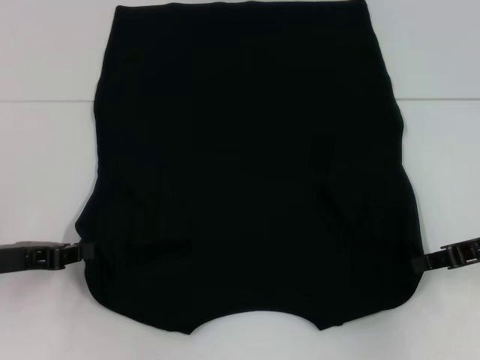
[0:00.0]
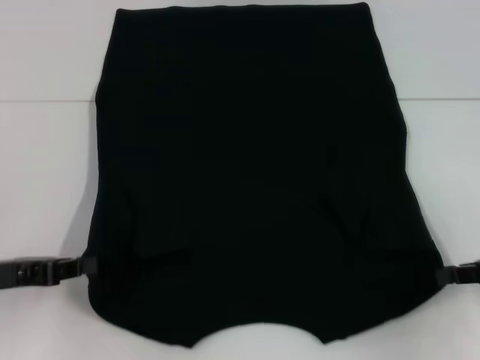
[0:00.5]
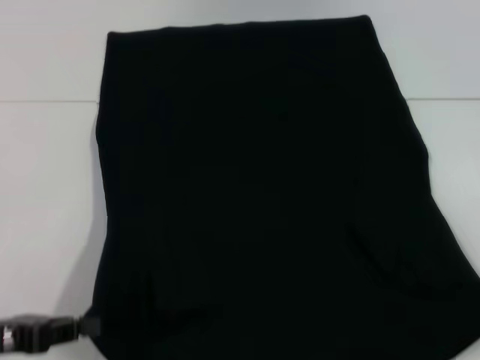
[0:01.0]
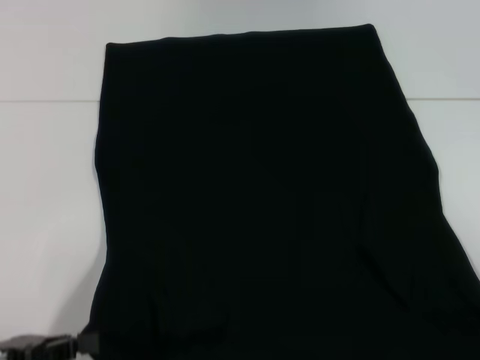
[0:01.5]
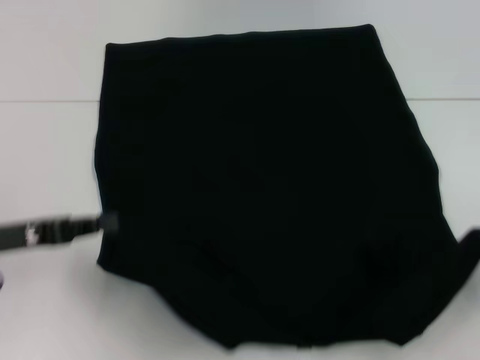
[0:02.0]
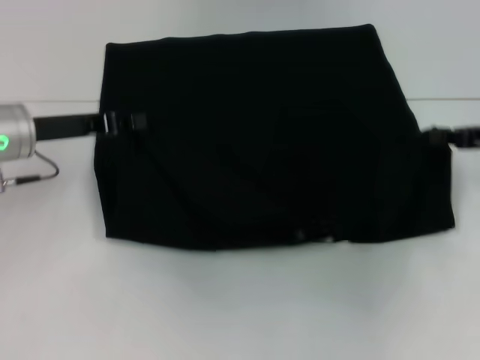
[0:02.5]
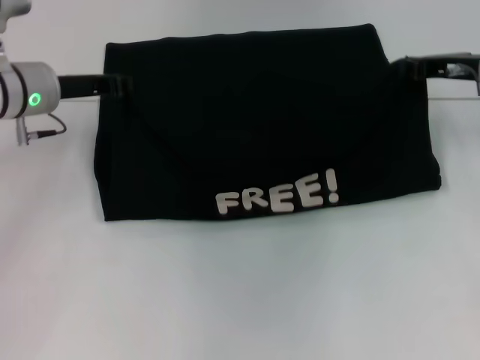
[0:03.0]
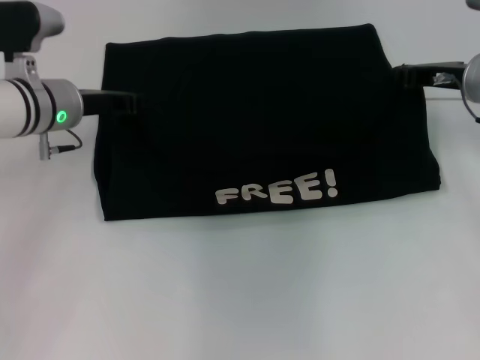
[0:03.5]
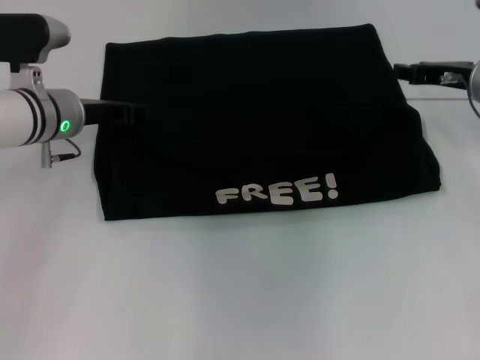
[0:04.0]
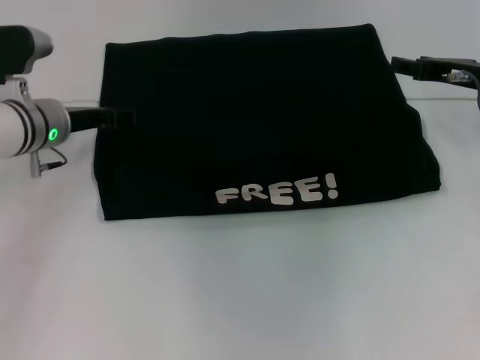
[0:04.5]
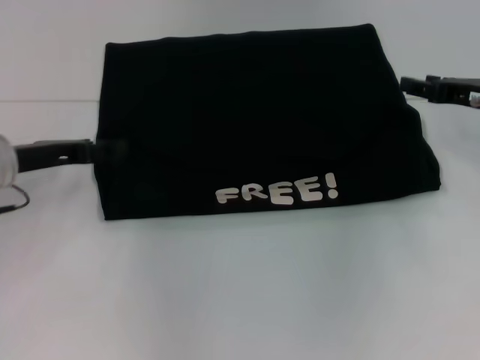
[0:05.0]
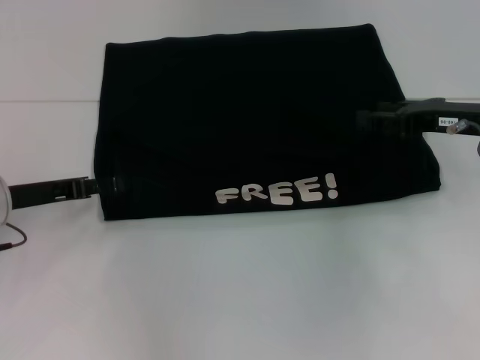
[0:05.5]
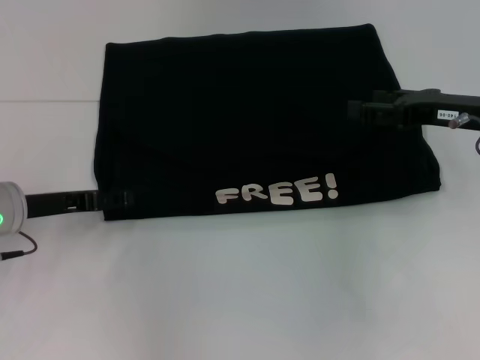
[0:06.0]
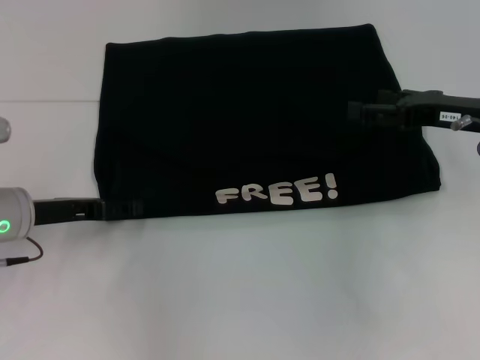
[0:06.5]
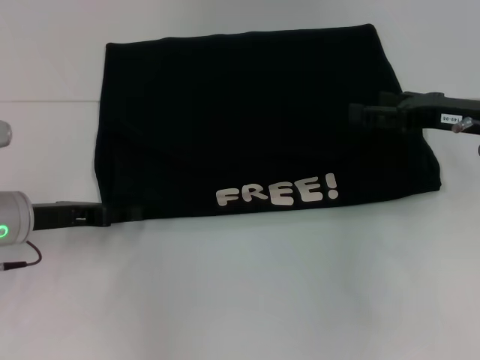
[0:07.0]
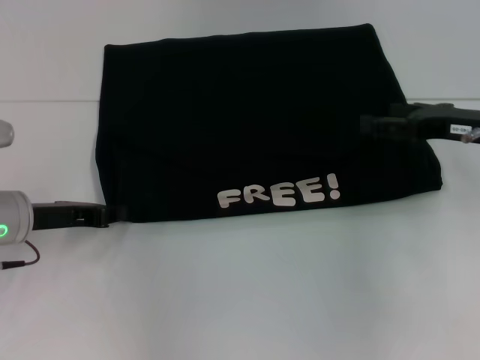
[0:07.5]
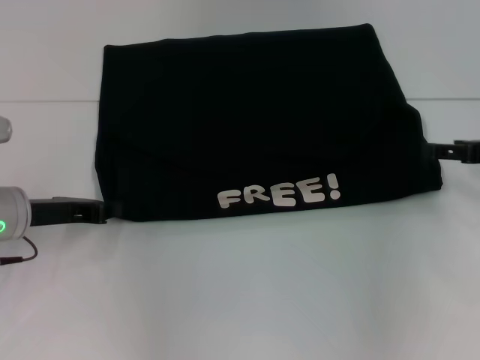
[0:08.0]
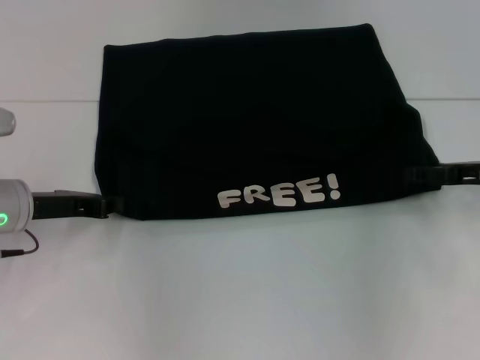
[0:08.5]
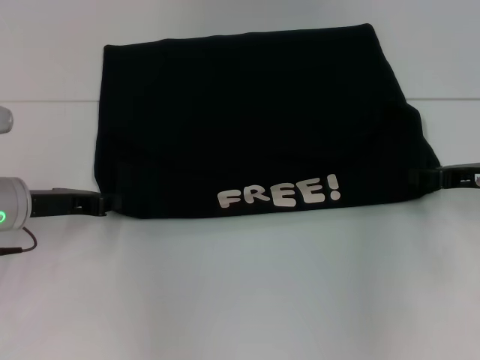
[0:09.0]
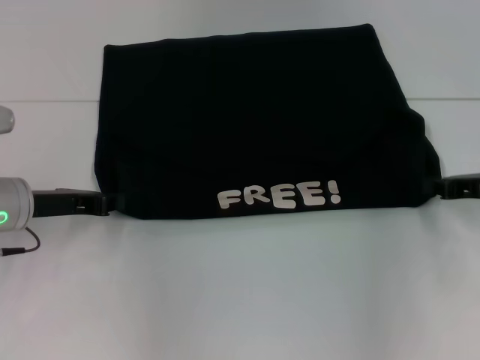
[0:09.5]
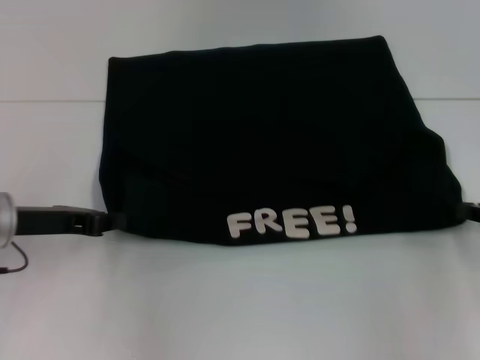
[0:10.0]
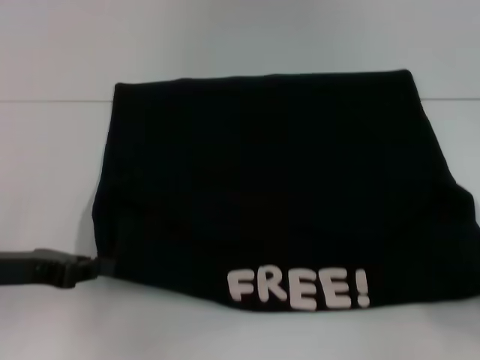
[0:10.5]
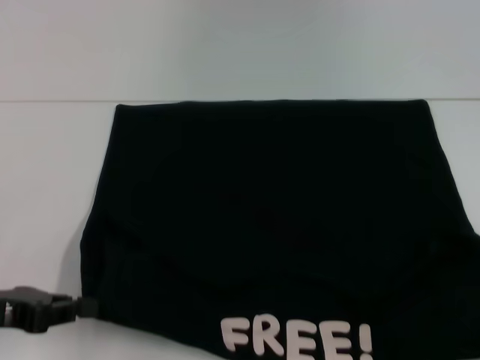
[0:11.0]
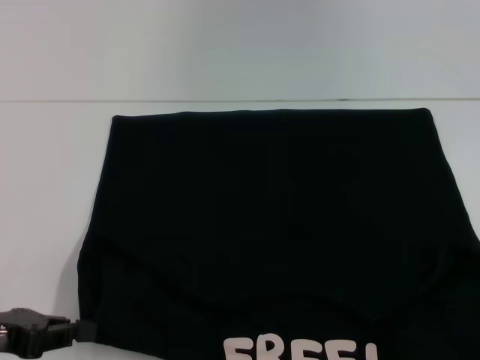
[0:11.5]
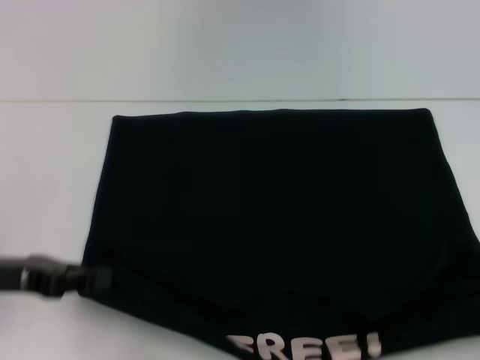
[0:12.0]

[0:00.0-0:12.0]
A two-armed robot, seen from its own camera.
Step, 0:00.0 to 0:04.5: Fold the clothes with your left hand.
Step, 0:00.0 to 0:04.5: Fold the clothes with your right hand.
Step, 0:05.0 to 0:10.5: Pull the clothes with your left hand.
Step, 0:05.0 to 0:10.5: Pull the clothes with your right hand.
0:00.0 to 0:02.0: The right gripper shifts some 10 cm to the right and backward, while the left gripper travels backward and back again, some 10 cm each way.
0:02.0 to 0:04.0: The left gripper is displaced forward and to the right by roughly 20 cm, and opens, while the right gripper moves forward and to the left, about 25 cm.
0:04.0 to 0:06.0: The right gripper heads backward, covering roughly 5 cm. Meanwhile the left gripper moves backward and to the left, some 10 cm, and opens up.
0:06.0 to 0:08.0: The right gripper heads to the right, covering approximately 5 cm; the left gripper closes.
0:08.0 to 0:10.0: The right gripper moves backward, approximately 5 cm, and closes.
0:10.0 to 0:12.0: The left gripper travels backward by approximately 5 cm. The right gripper travels backward by about 15 cm.

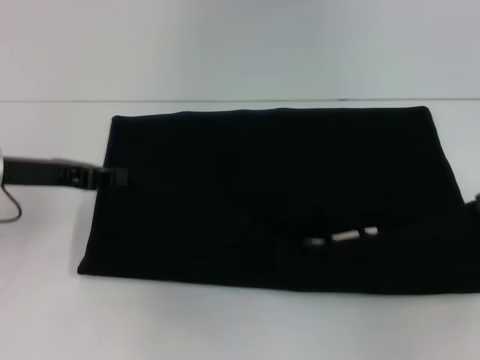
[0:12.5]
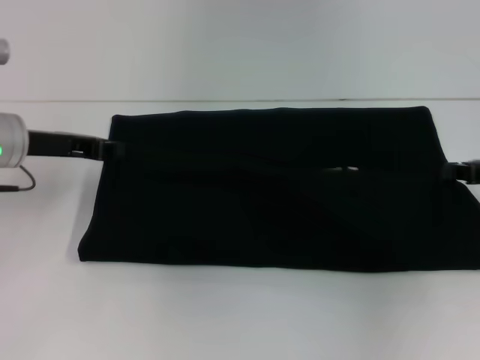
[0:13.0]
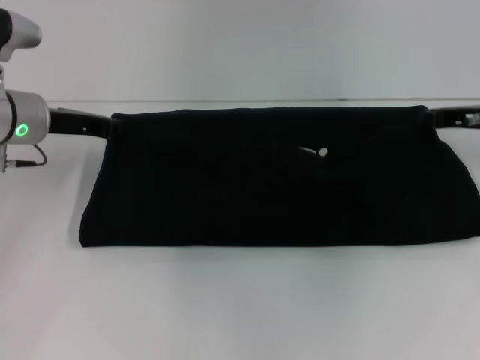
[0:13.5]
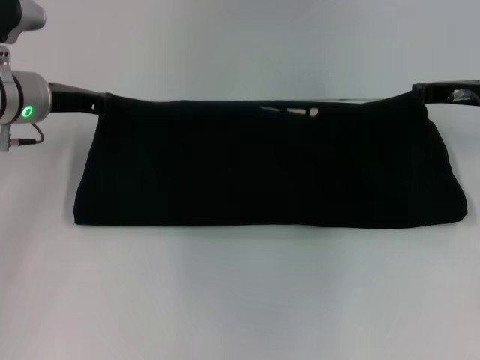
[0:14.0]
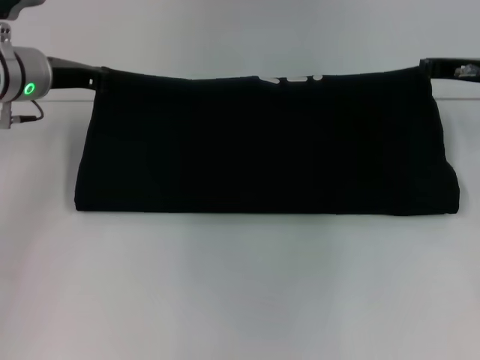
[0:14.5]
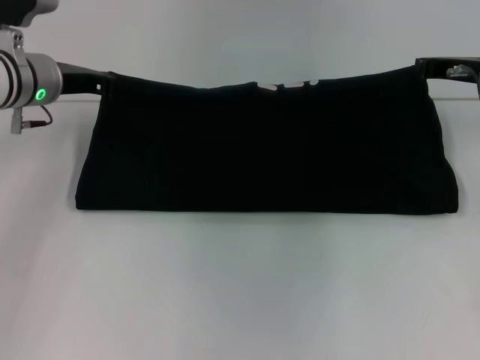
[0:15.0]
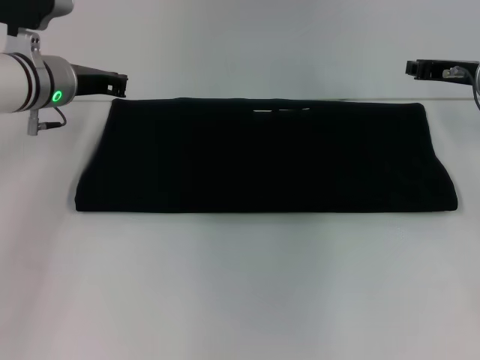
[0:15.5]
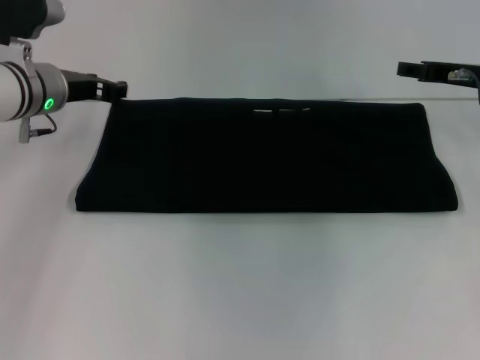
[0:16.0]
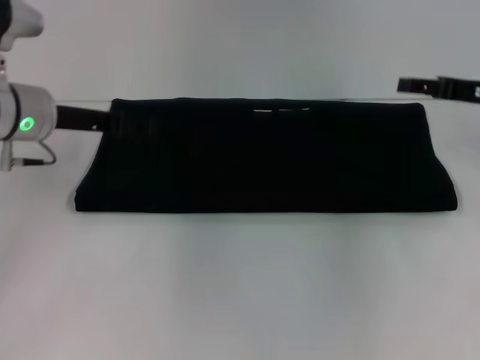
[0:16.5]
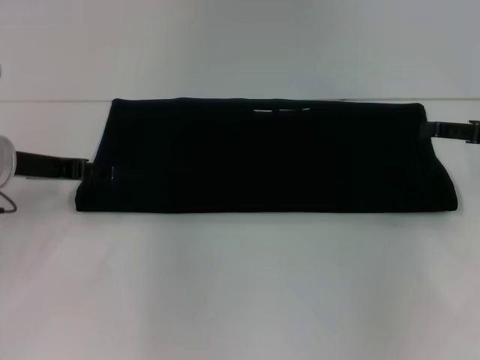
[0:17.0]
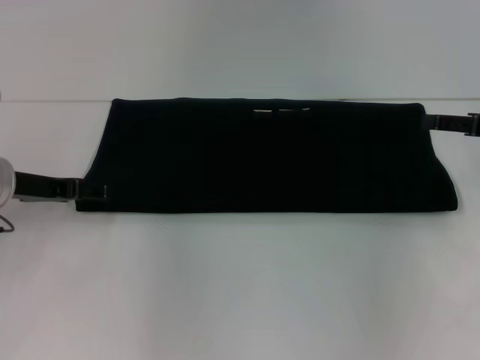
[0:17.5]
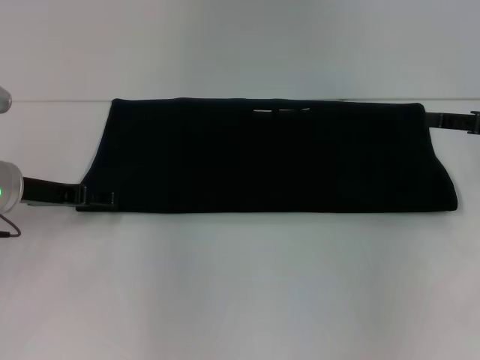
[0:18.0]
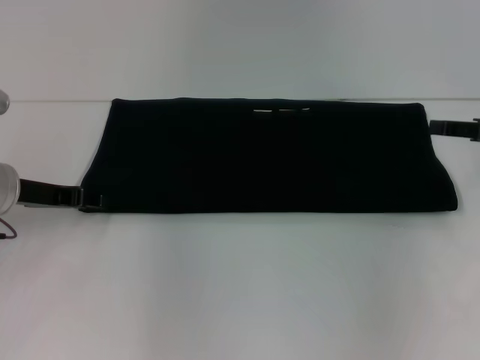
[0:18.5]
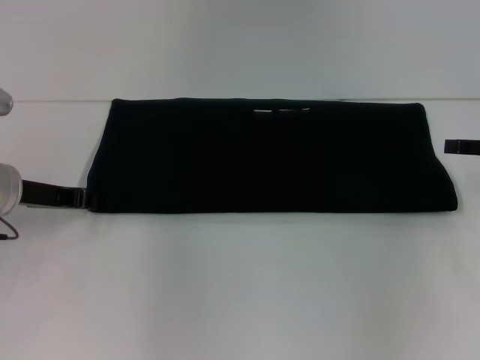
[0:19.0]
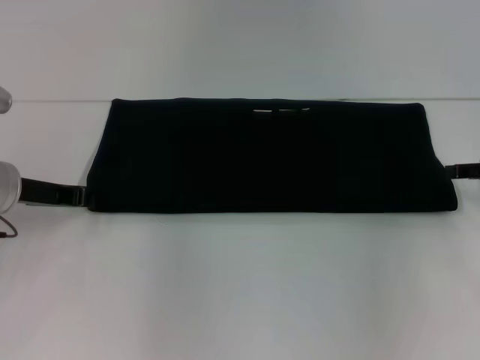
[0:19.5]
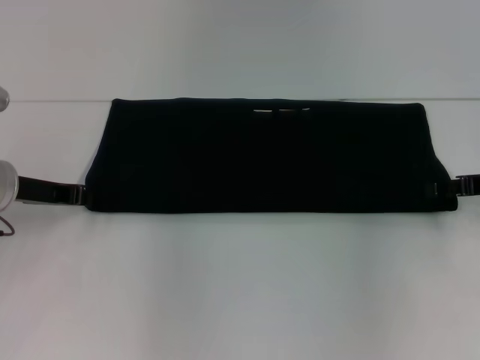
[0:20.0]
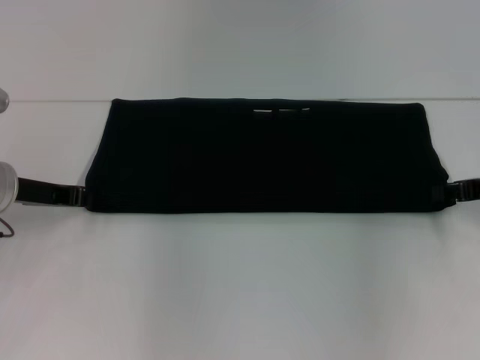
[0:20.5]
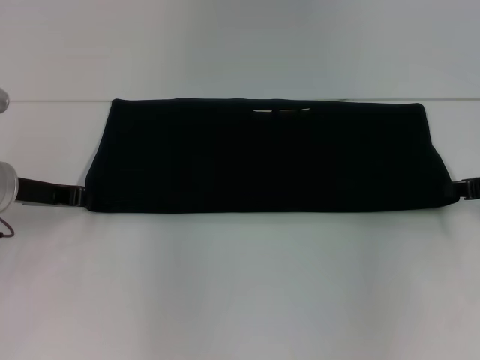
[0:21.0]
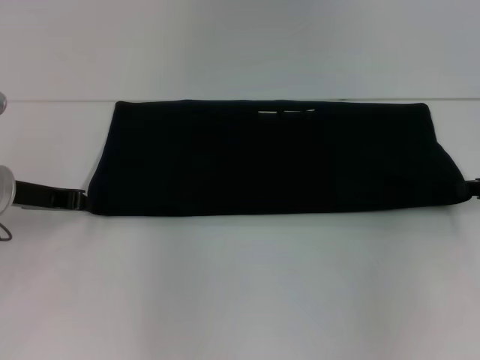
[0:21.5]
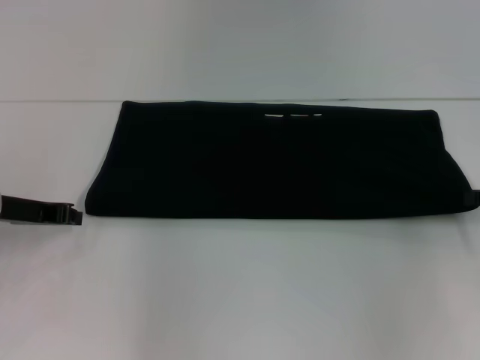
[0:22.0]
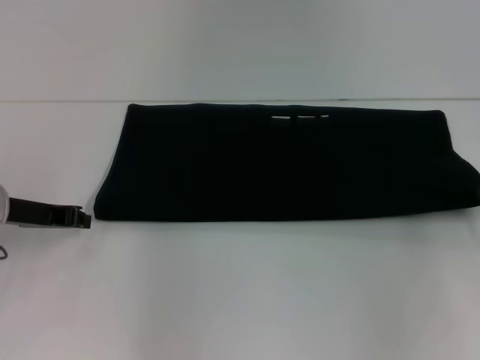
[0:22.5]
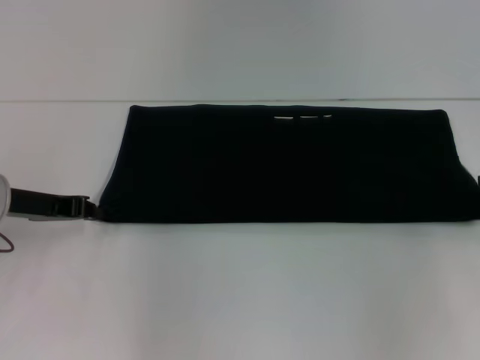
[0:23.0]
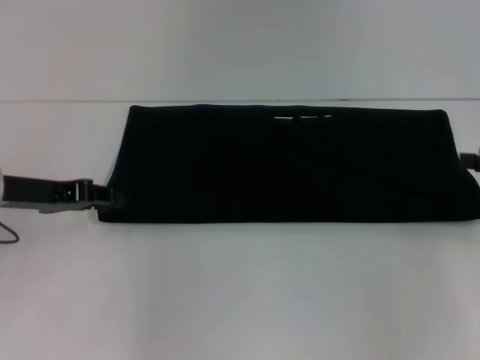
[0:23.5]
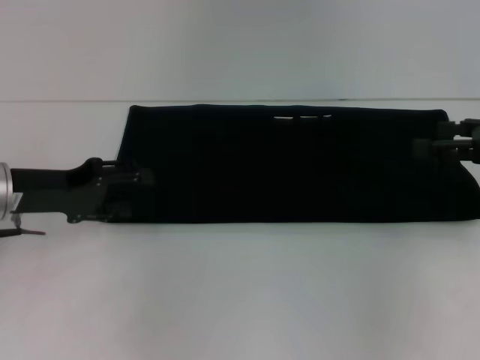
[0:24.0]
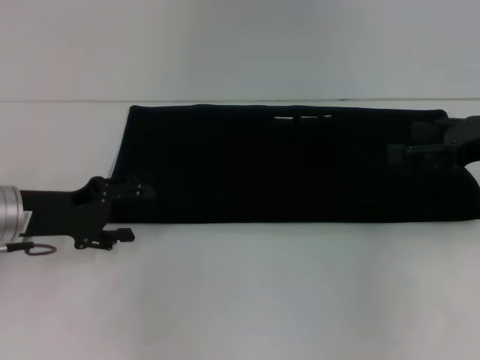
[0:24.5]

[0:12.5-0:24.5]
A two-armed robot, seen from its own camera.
Step, 0:12.5 to 0:16.0: Fold the clothes with your right hand.
0:12.5 to 0:14.5: The left gripper is displaced forward by some 10 cm. The right gripper heads forward and to the left, covering roughly 20 cm.
0:14.5 to 0:16.5: The left gripper opens its fingers. The right gripper opens.
0:16.5 to 0:18.5: The left gripper ends up some 10 cm from where it was. The right gripper shifts by approximately 5 cm.
0:20.5 to 0:22.5: The right gripper ends up roughly 5 cm from where it was, and closes up.
0:22.5 to 0:24.5: The left gripper opens up. Meanwhile the right gripper travels to the left by some 5 cm, and opens its fingers.

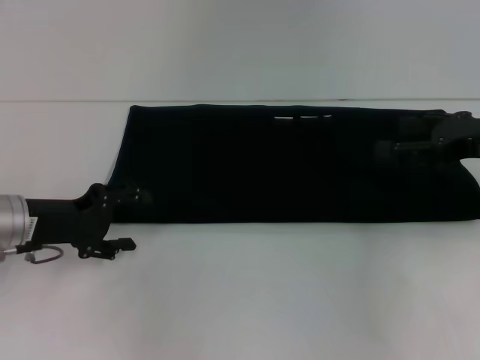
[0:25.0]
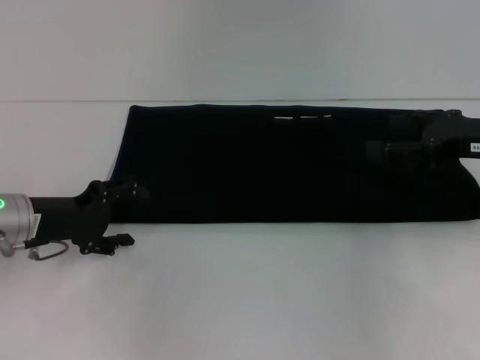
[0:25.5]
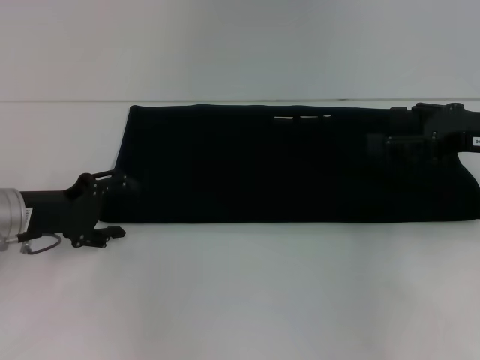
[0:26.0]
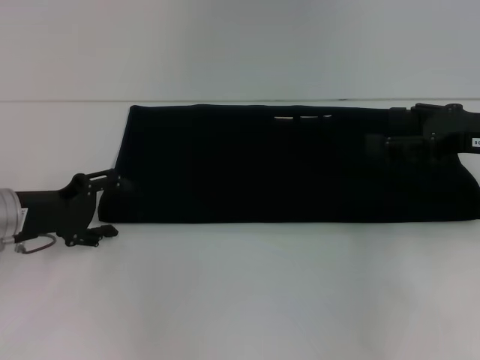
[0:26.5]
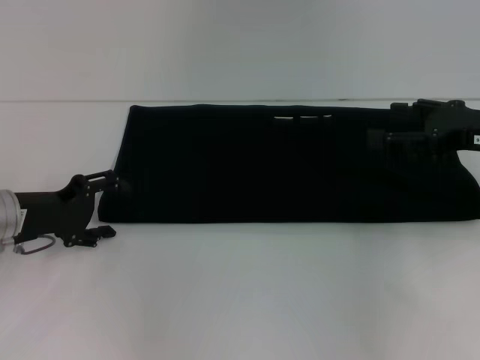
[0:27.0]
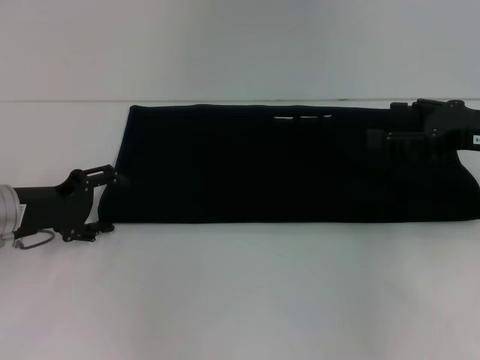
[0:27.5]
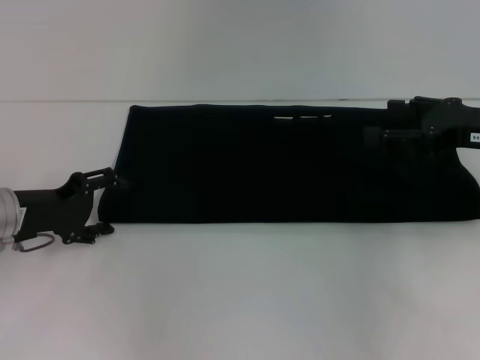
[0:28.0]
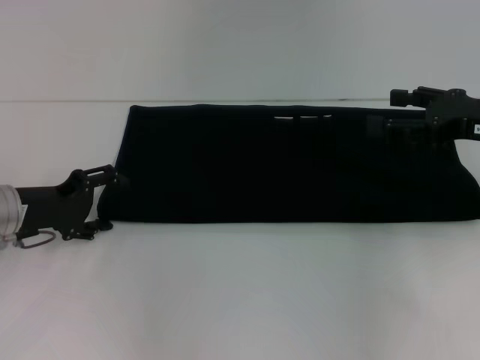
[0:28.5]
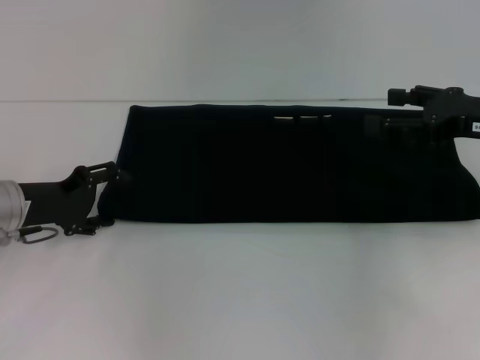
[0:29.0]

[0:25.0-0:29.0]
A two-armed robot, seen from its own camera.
0:25.0 to 0:27.0: The grippers make only small movements.
0:27.0 to 0:29.0: Neither gripper changes place.
